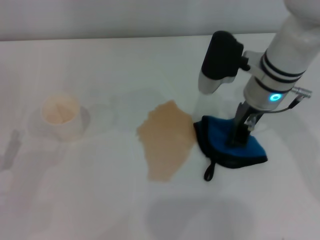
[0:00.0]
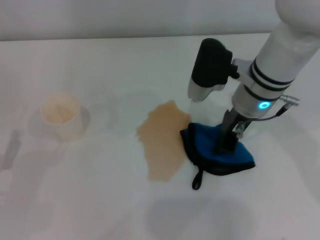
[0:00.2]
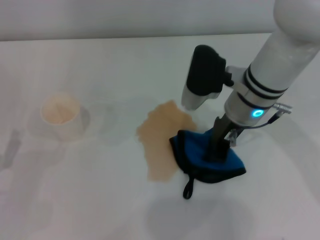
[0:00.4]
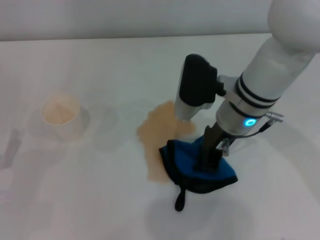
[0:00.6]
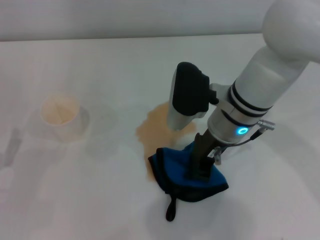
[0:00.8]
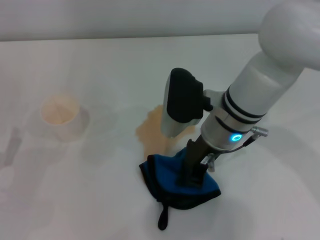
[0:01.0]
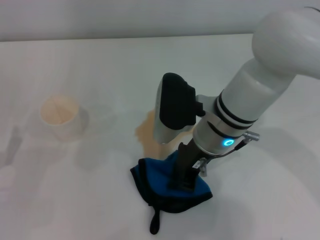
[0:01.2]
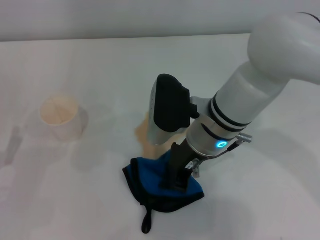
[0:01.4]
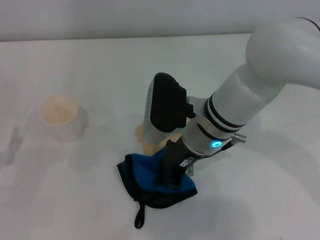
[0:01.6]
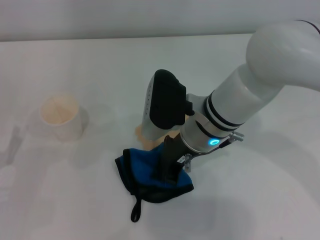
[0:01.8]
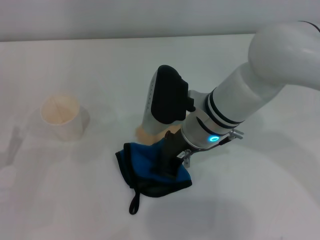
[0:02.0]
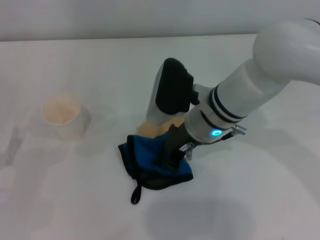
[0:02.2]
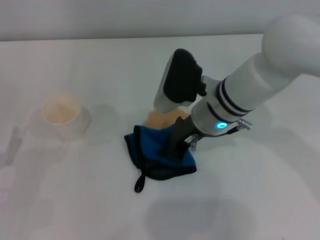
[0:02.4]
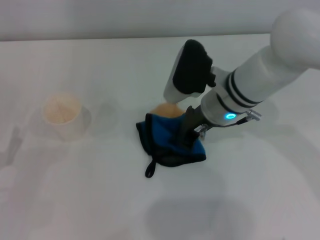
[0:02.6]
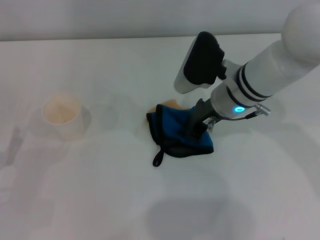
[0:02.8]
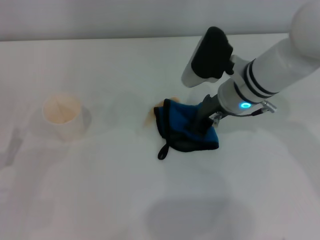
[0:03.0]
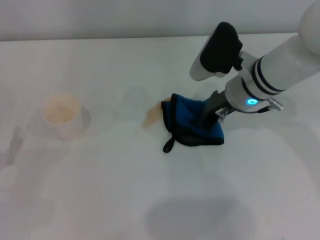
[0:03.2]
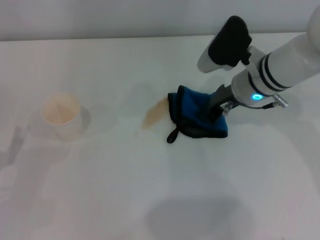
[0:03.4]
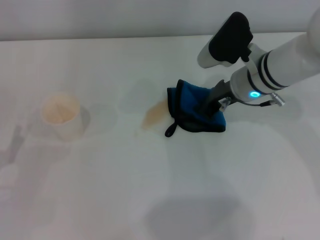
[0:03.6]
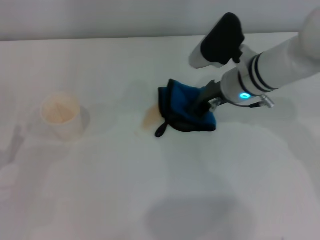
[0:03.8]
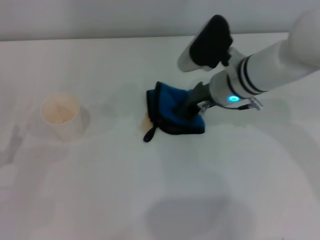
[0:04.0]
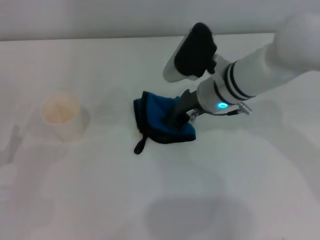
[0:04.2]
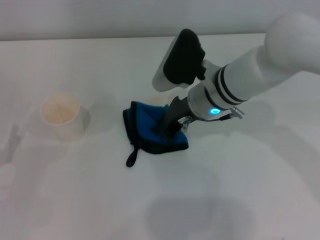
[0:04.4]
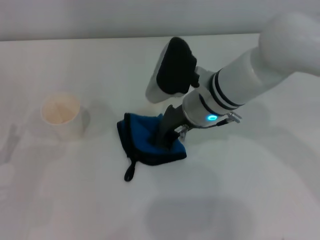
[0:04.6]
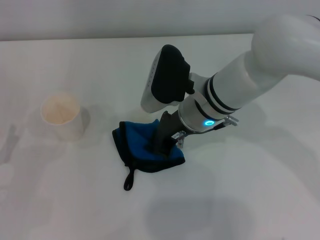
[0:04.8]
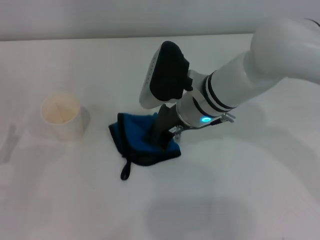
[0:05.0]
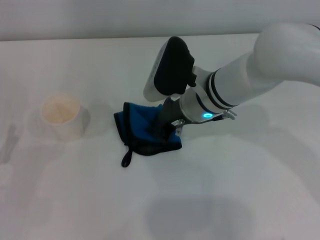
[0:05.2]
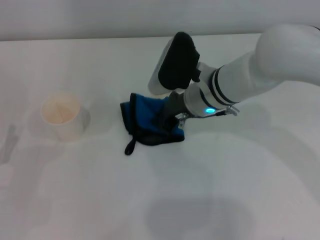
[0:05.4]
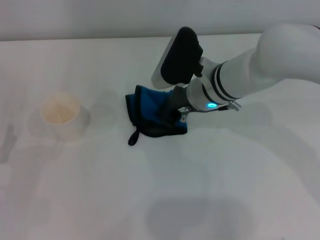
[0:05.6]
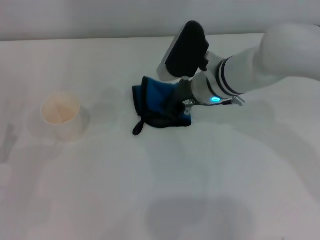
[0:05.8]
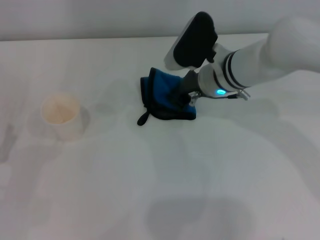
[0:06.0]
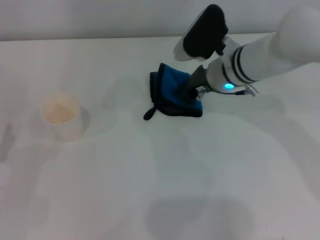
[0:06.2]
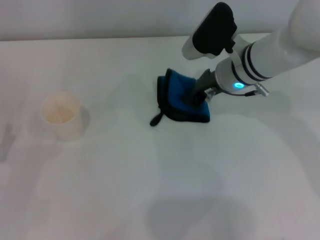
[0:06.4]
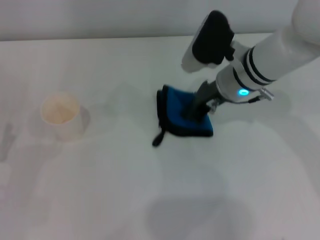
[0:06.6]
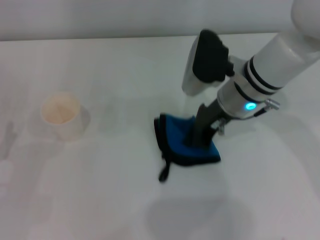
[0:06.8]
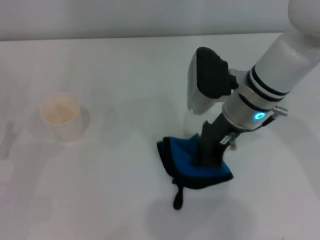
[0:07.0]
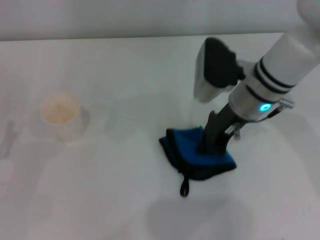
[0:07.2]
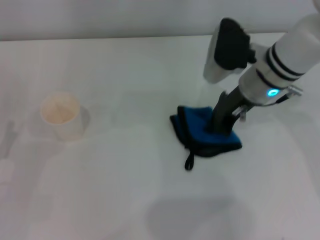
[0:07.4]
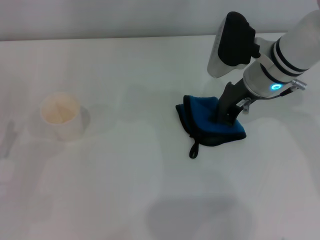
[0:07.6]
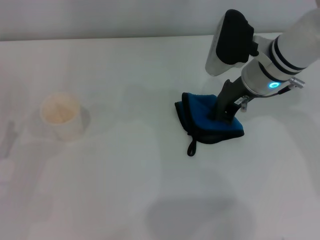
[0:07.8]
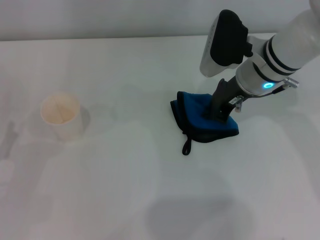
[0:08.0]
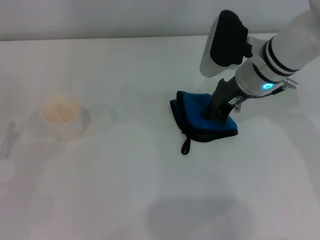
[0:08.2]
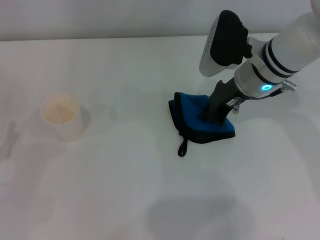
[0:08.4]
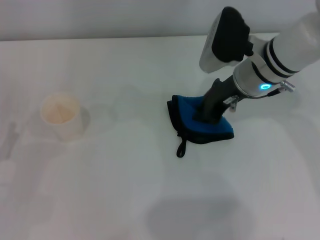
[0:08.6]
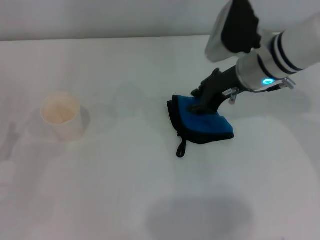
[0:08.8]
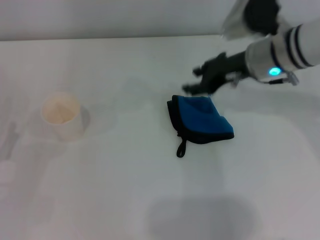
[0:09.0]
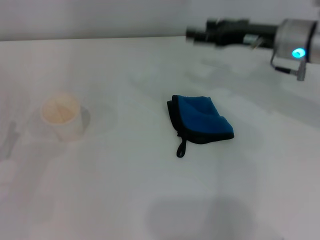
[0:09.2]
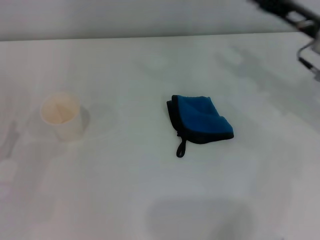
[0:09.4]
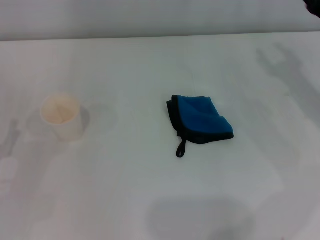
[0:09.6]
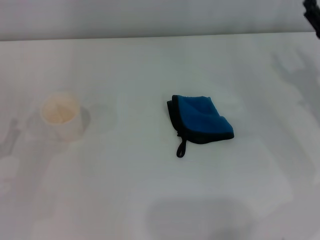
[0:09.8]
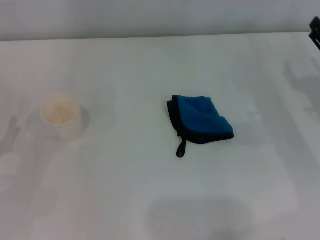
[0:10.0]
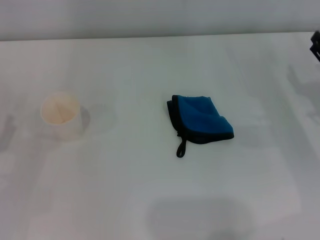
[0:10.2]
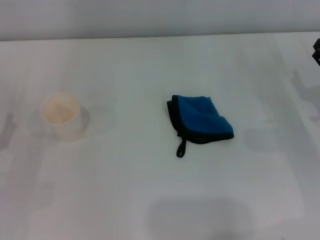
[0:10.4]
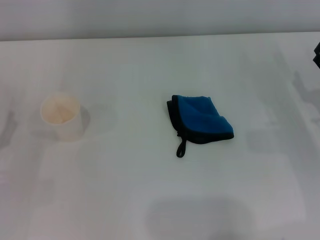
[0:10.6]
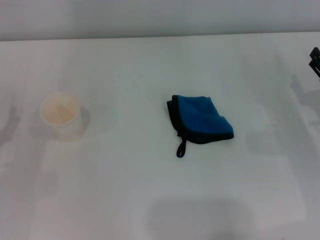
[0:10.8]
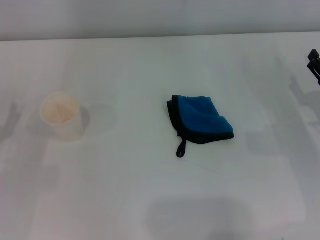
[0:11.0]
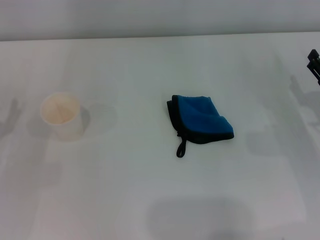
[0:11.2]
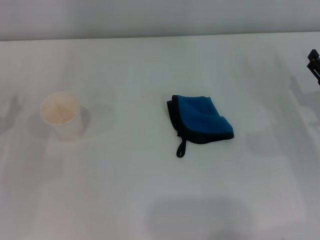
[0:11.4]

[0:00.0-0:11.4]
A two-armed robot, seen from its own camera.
Step, 0:00.0 to 0:07.6: Wipe the stains off the table with the right gripper.
Step, 0:07.8 to 0:08.4: Place the rag on the table with the right gripper.
0:00.0 to 0:01.4: The right gripper goes roughly 10 cm to the left and backward.
0:01.4 to 0:02.8: The right gripper heads to the right, covering some 5 cm.
0:02.8 to 0:05.6: The grippers move only a little.
0:05.6 to 0:07.2: The right gripper moves about 5 cm.
0:07.2 to 0:08.6: There are only small adjustments of the grippers.
0:08.6 to 0:10.0: The right gripper heads to the right, backward and downward, covering about 20 cm, and opens its fingers.

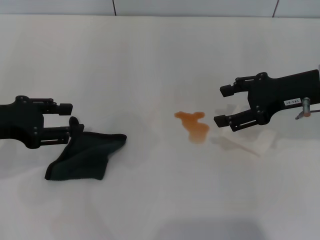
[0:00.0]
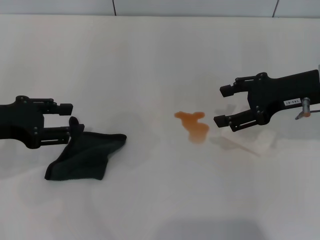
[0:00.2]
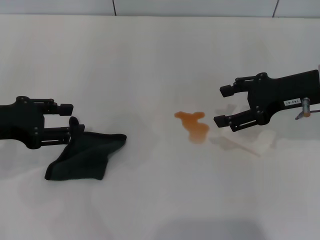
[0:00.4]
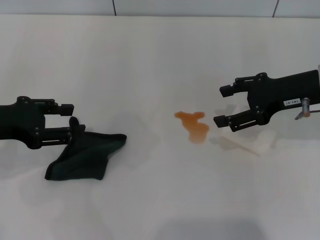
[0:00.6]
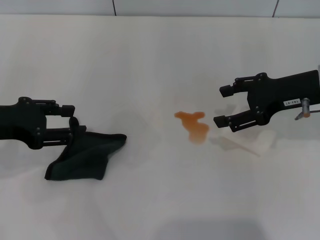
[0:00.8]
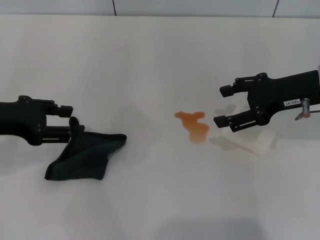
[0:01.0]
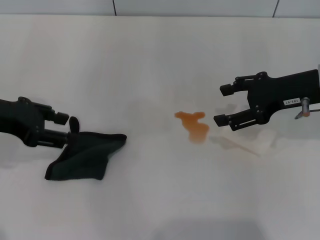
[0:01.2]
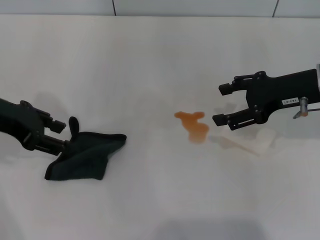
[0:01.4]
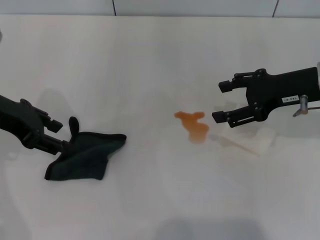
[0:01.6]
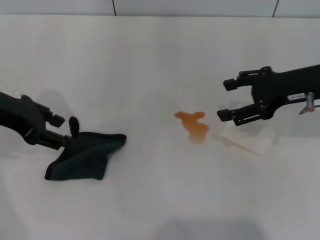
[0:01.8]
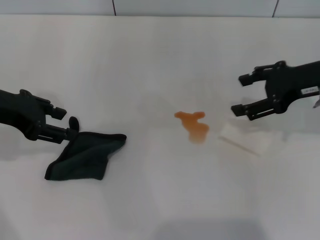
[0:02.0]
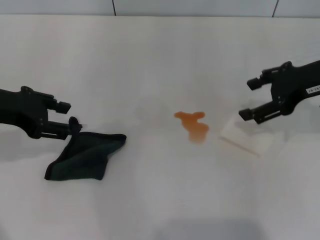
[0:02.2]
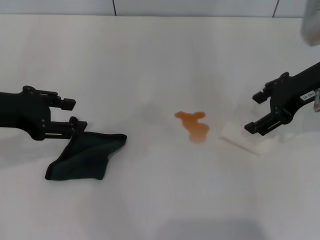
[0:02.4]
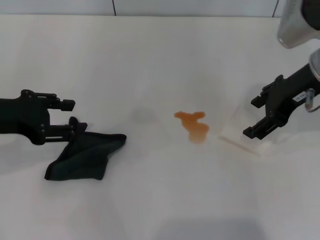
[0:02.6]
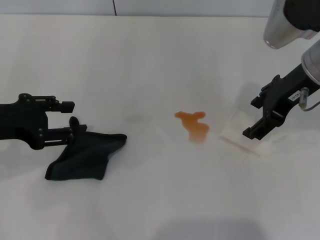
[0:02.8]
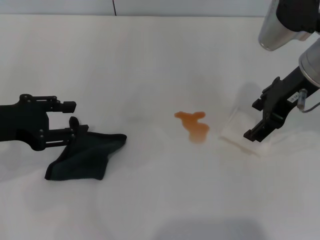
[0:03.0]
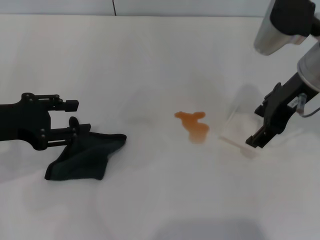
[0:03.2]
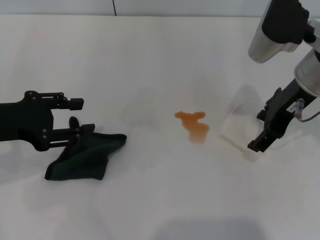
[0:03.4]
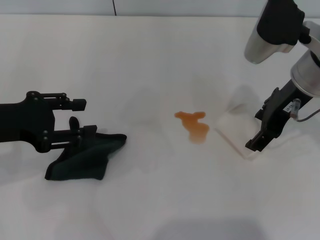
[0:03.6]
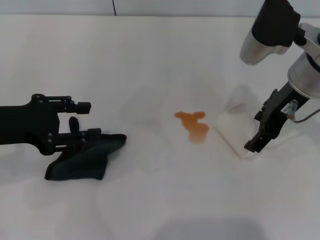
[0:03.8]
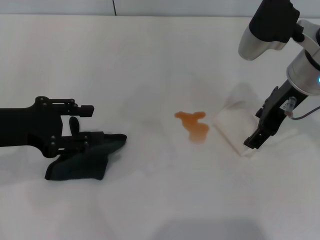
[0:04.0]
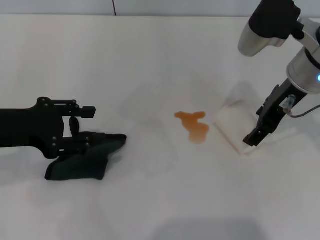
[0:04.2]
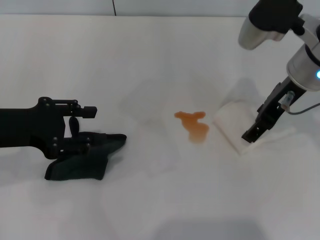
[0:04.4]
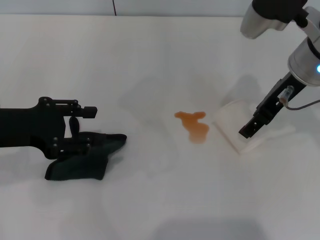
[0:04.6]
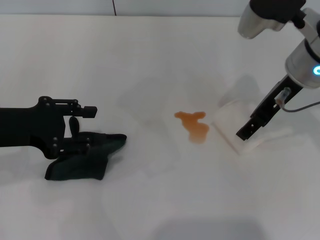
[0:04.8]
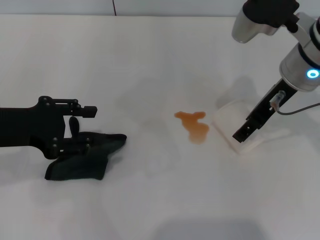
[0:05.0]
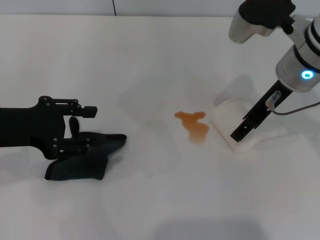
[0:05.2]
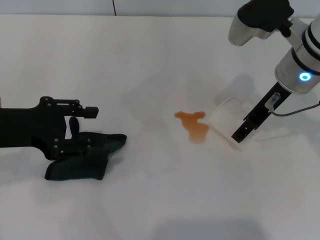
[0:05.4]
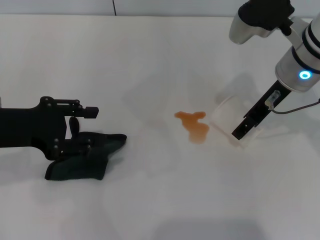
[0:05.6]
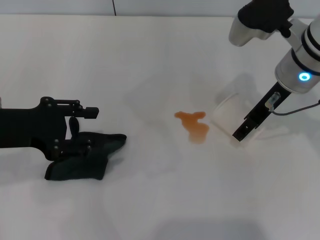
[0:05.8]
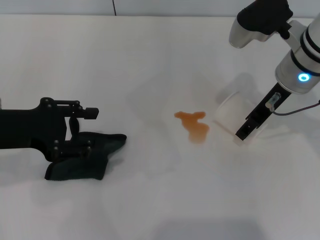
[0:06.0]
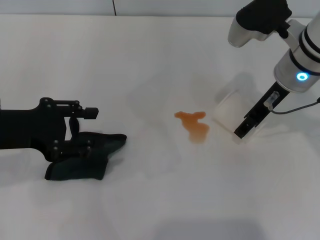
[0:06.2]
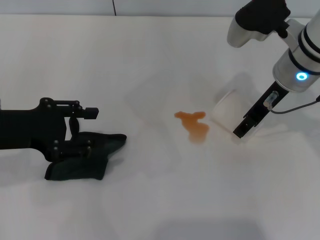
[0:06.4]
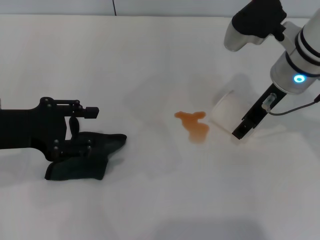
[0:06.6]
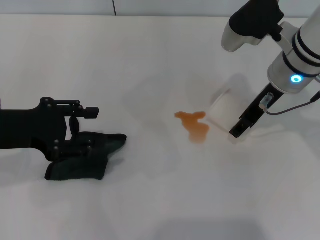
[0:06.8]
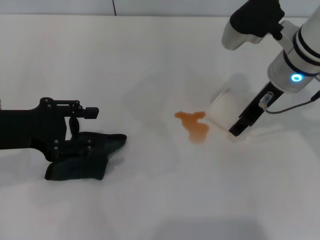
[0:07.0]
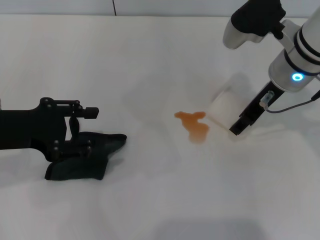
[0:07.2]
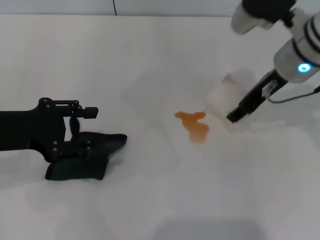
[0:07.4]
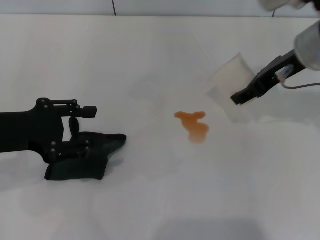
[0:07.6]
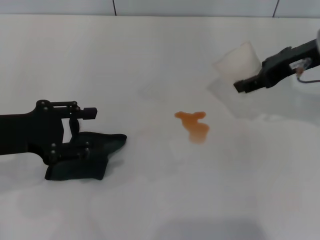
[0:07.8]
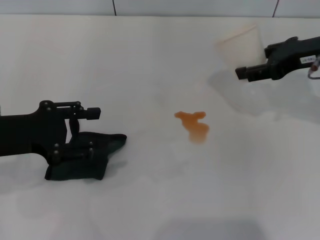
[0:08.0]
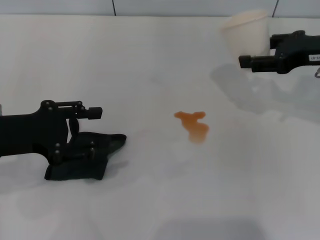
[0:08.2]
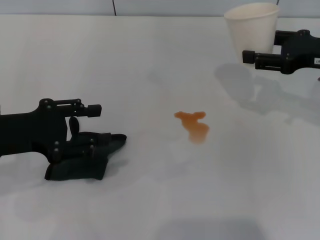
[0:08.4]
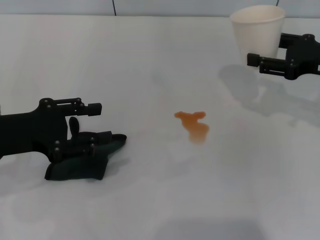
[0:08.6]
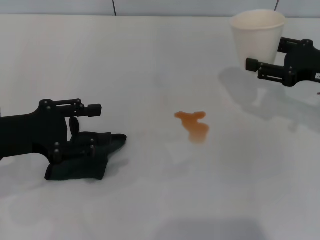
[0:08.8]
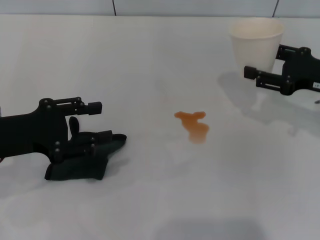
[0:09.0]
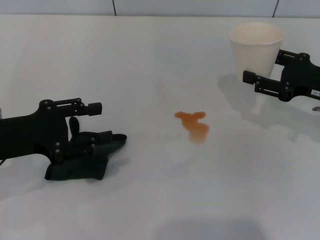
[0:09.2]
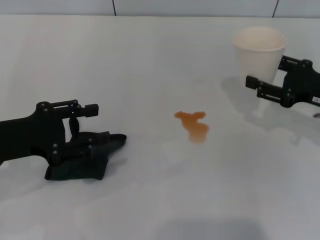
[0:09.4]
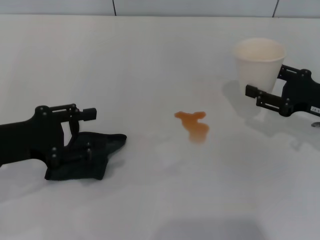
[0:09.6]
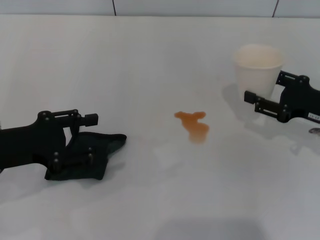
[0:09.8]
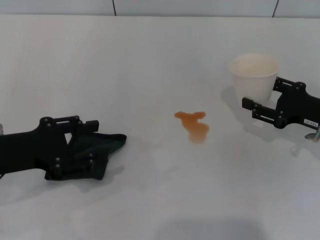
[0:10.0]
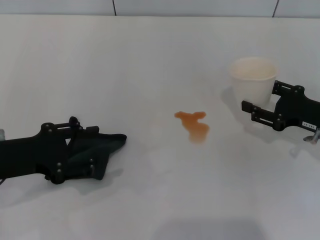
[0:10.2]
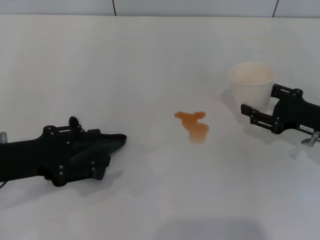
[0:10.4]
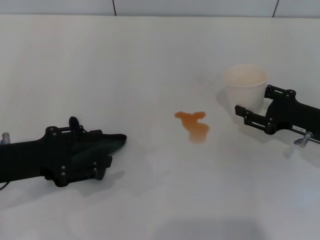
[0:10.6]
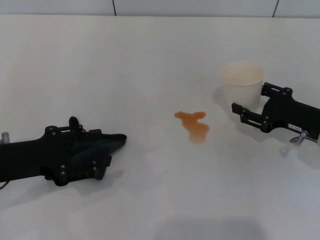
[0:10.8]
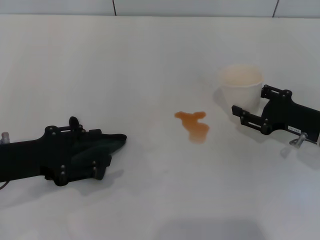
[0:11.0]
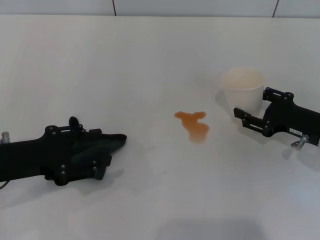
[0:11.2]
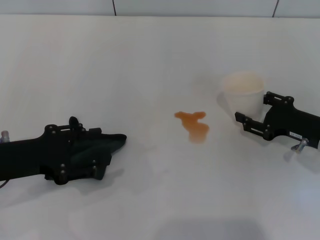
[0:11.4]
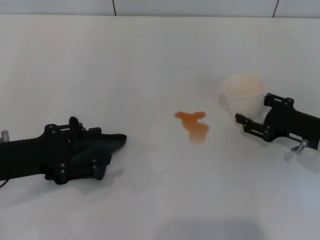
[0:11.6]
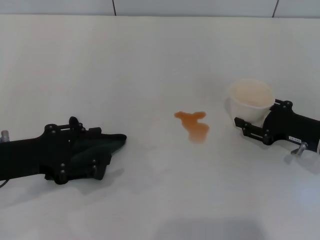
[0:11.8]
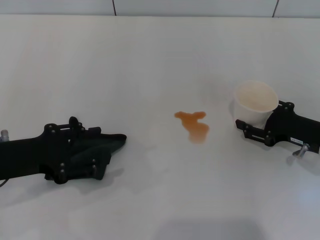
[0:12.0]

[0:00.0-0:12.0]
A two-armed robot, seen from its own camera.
Step, 0:00.0 to 0:06.6: Grasp the paper cup with the right gripper.
0:00.0 to 0:01.6: The left gripper changes place by about 5 cm.
0:01.6 to 0:03.0: The right gripper heads to the left and upward, covering about 5 cm; the left gripper is displaced backward by some 5 cm.
0:03.0 to 0:04.4: The grippers move only a little.
0:04.4 to 0:06.0: There are only small adjustments of the grippers.
0:06.0 to 0:07.6: The right gripper closes.
0:07.6 to 0:09.0: The right gripper moves to the right and downward, some 15 cm.
0:09.0 to 0:10.4: The right gripper travels downward by approximately 5 cm.
0:10.4 to 0:12.0: The grippers make only small movements.
